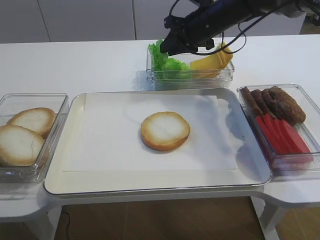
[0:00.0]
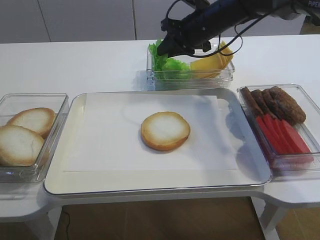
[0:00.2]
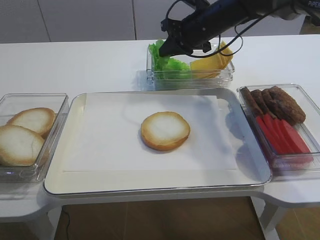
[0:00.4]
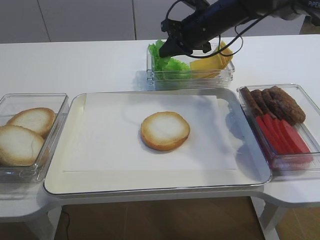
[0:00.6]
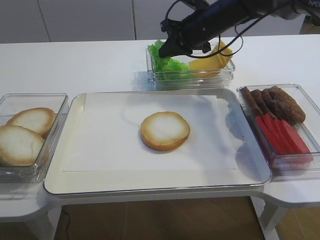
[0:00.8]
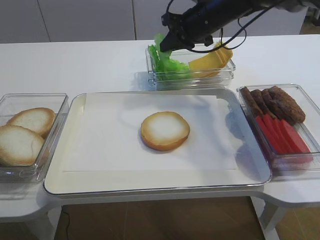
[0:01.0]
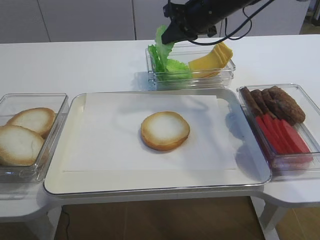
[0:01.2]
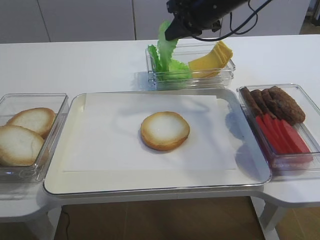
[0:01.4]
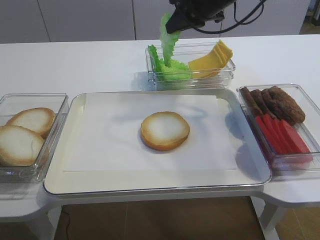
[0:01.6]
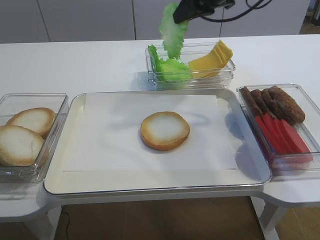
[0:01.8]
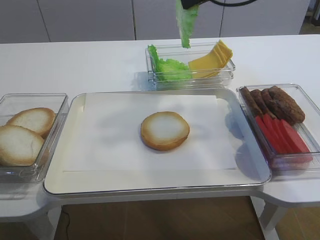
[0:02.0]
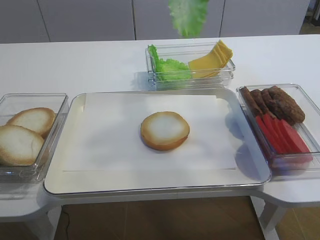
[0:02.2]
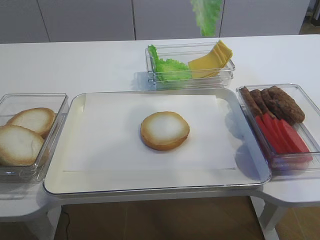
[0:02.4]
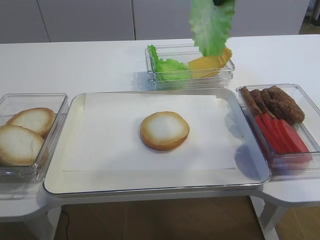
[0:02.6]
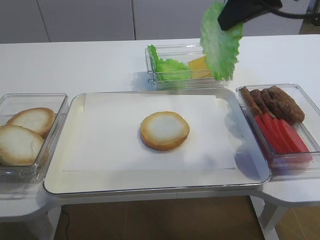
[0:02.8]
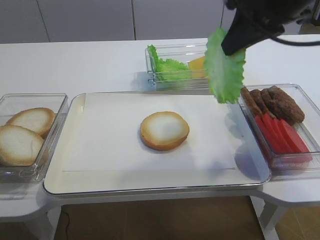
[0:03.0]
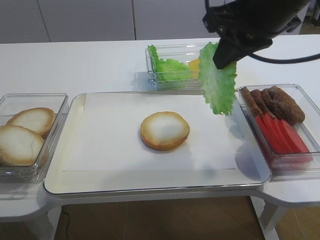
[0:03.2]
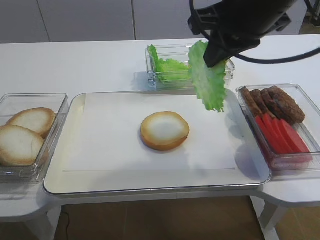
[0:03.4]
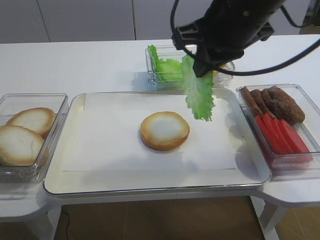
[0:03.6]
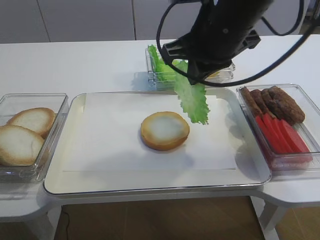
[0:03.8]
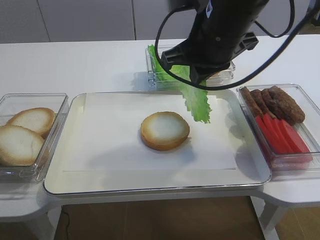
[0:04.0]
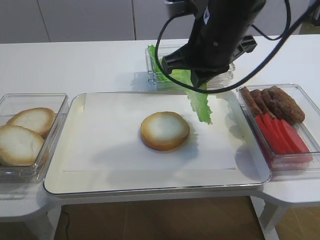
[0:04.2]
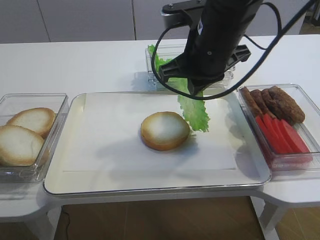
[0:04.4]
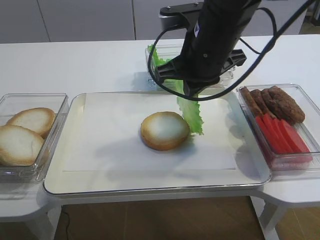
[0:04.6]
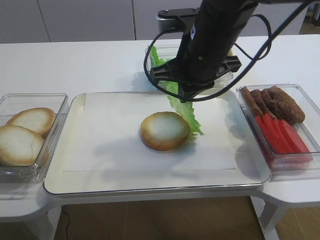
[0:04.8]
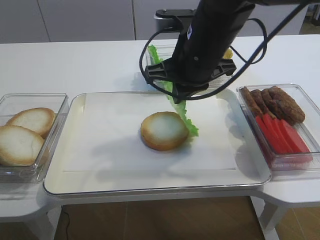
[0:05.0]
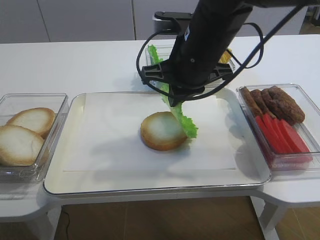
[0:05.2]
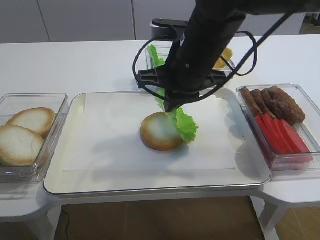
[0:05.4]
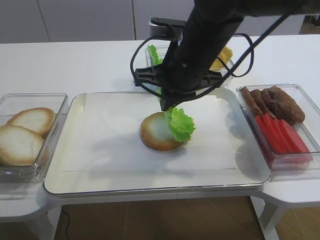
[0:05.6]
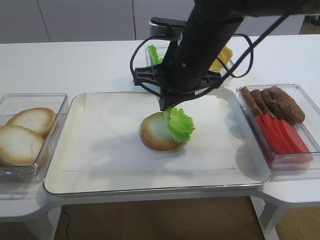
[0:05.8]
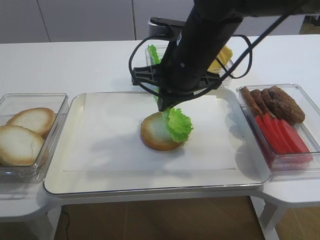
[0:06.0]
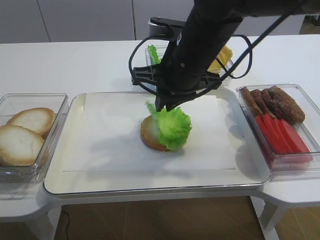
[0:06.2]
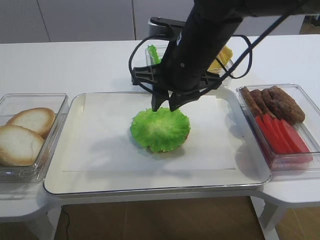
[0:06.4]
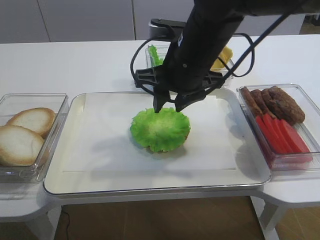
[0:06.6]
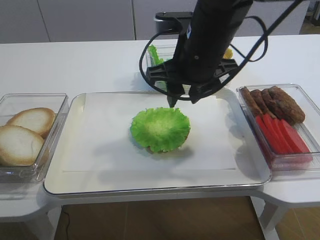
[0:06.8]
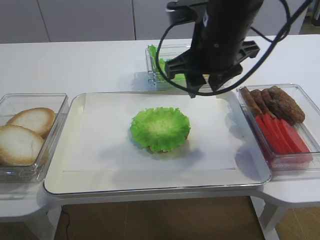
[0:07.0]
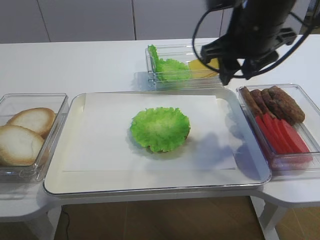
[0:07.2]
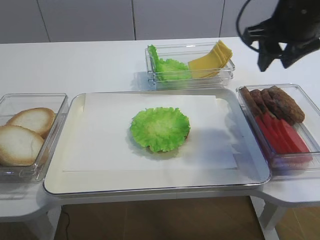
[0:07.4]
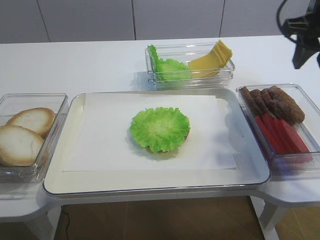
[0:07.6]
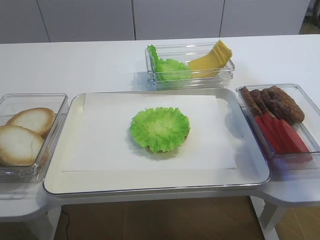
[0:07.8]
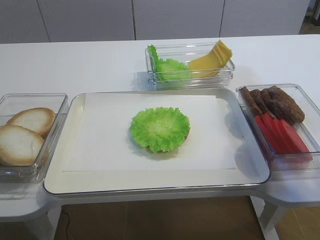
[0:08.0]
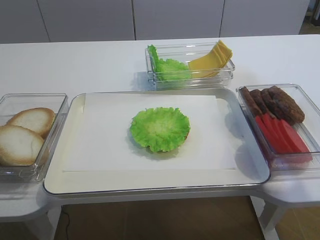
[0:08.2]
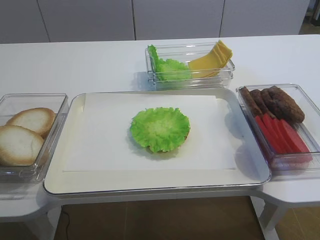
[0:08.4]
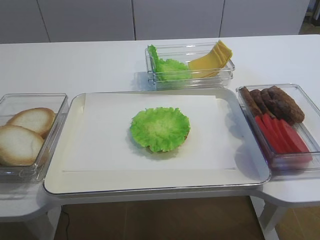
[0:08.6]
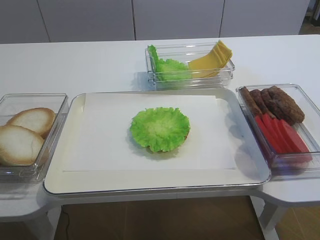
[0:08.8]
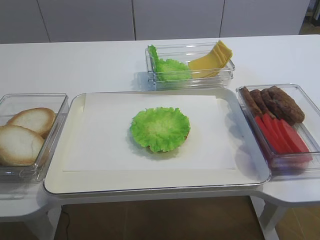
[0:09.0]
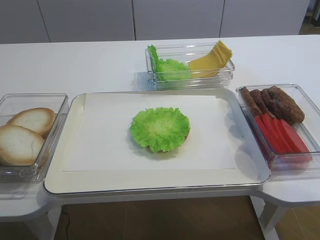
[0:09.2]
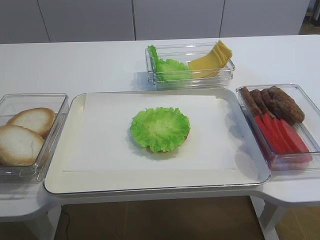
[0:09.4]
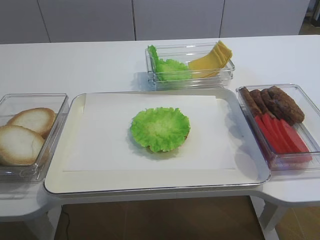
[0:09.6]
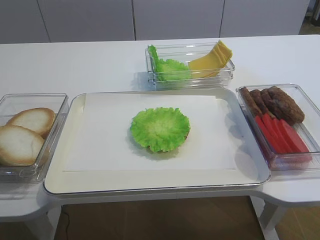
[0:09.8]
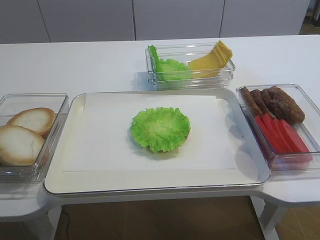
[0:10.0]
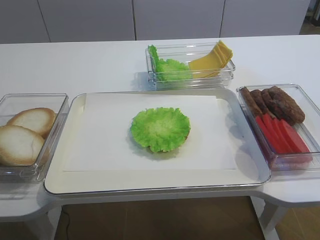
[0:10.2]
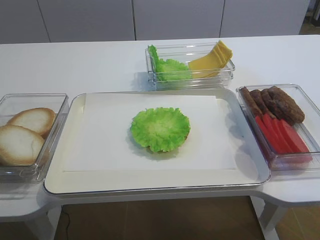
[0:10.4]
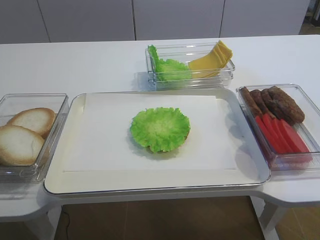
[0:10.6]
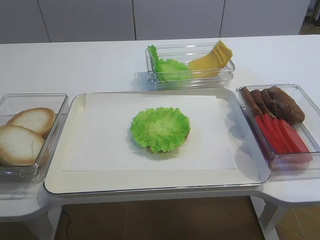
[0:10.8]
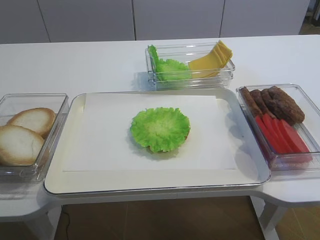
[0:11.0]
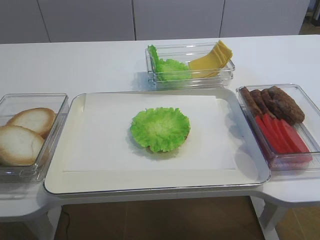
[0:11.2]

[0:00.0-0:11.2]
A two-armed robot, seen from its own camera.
Step, 0:01.4 to 0:06.6: Place the lettuce leaf on the bread slice with the right gripper.
0:00.0 to 0:01.6: The right gripper travels upward by roughly 5 cm, and closes its fingers.
0:01.6 to 0:03.2: The right gripper travels backward by about 15 cm.
0:03.2 to 0:04.8: The right gripper goes some 10 cm downward and to the left.
0:04.8 to 0:06.4: The right gripper opens its fingers.
0:06.4 to 0:08.0: The right gripper shifts some 25 cm to the right.
0:08.0 to 0:09.6: The right gripper moves backward, some 30 cm.

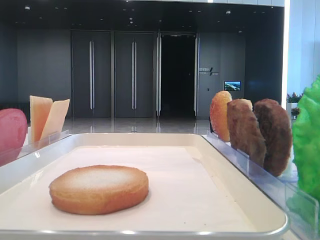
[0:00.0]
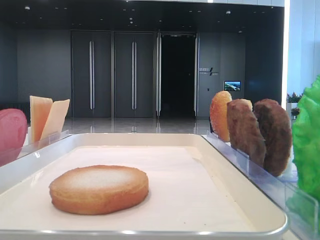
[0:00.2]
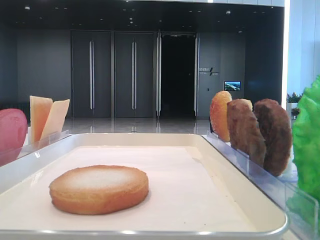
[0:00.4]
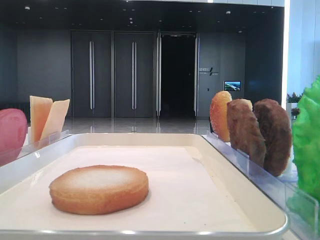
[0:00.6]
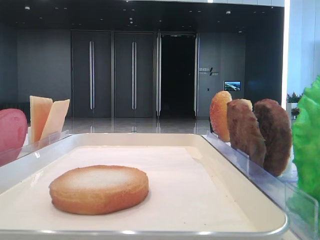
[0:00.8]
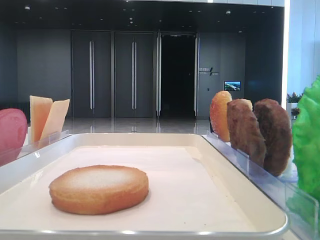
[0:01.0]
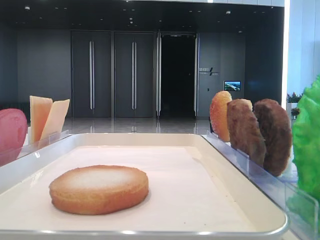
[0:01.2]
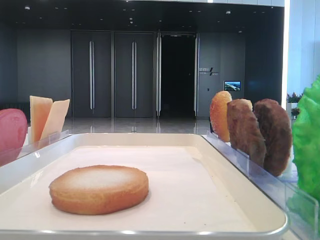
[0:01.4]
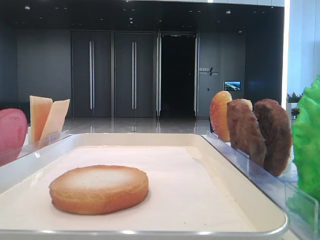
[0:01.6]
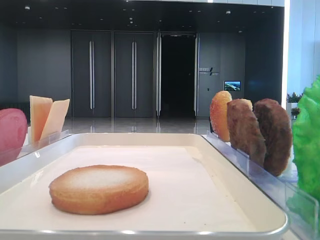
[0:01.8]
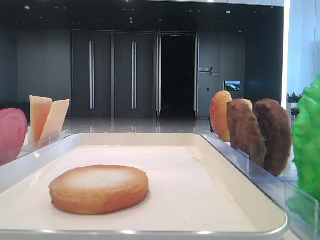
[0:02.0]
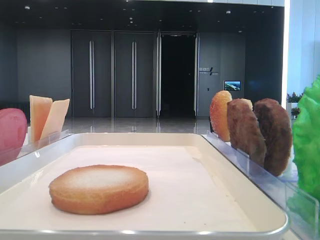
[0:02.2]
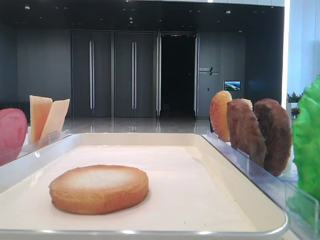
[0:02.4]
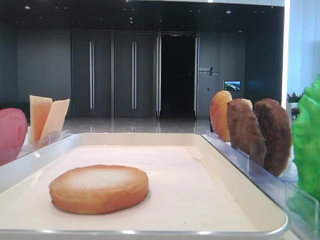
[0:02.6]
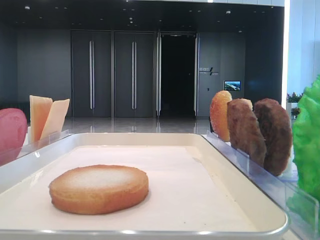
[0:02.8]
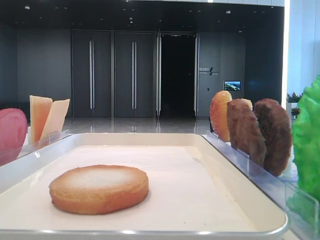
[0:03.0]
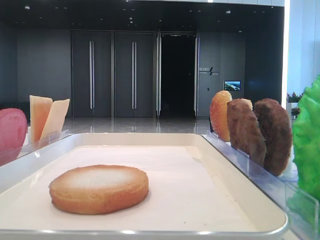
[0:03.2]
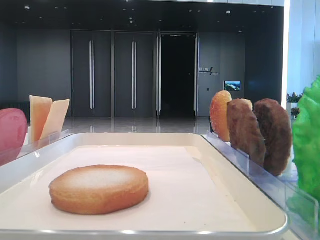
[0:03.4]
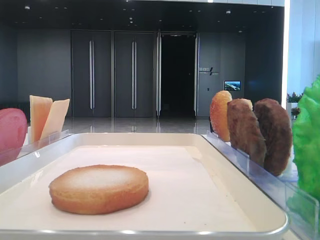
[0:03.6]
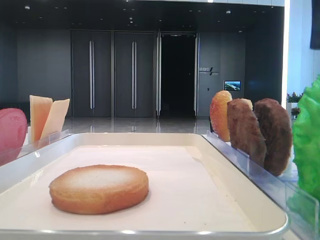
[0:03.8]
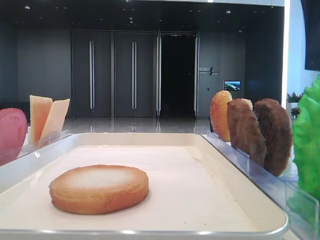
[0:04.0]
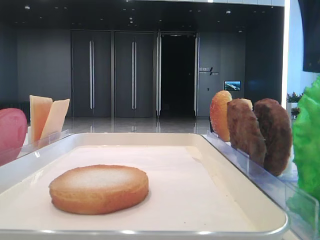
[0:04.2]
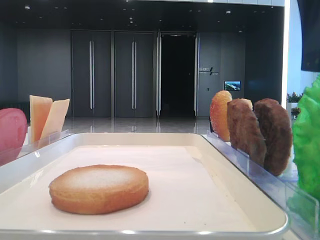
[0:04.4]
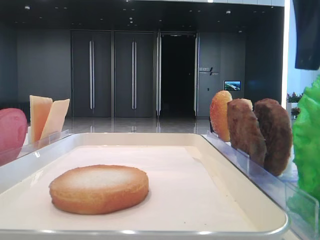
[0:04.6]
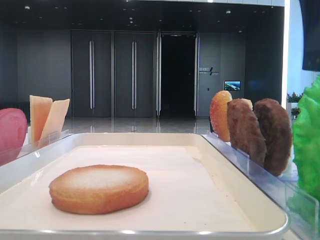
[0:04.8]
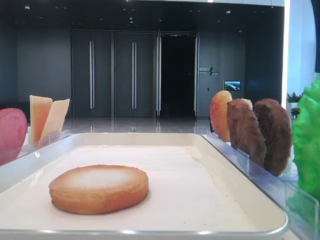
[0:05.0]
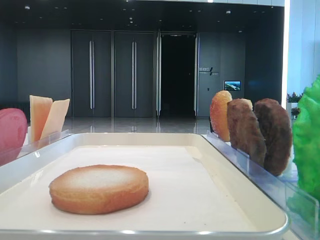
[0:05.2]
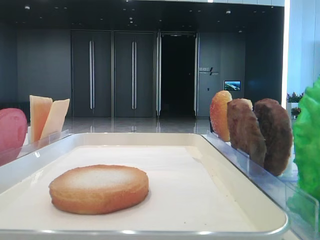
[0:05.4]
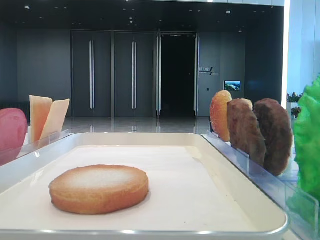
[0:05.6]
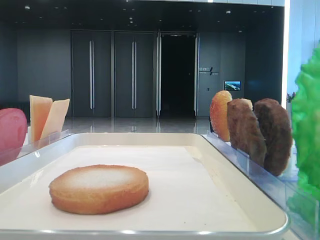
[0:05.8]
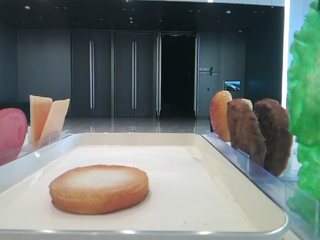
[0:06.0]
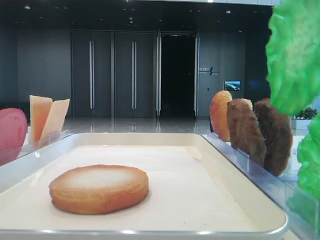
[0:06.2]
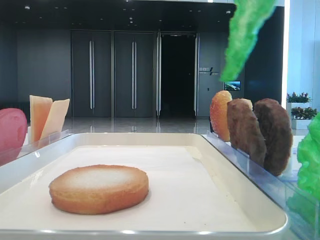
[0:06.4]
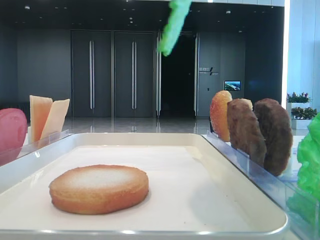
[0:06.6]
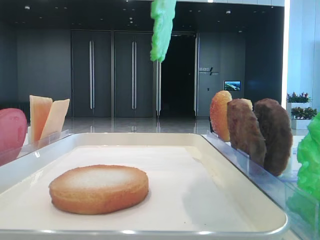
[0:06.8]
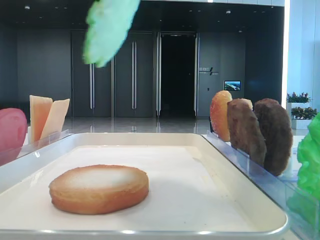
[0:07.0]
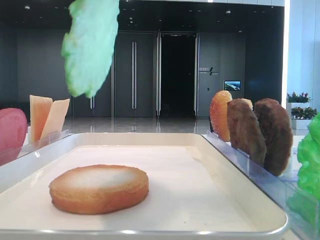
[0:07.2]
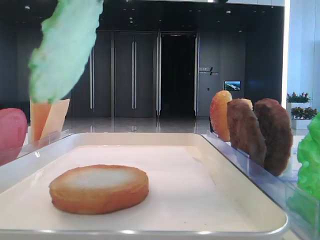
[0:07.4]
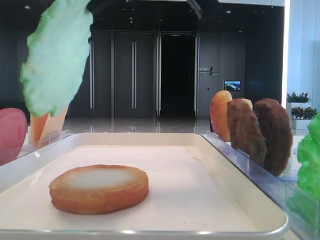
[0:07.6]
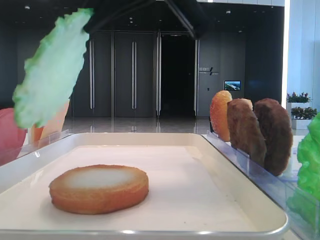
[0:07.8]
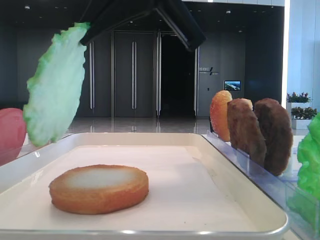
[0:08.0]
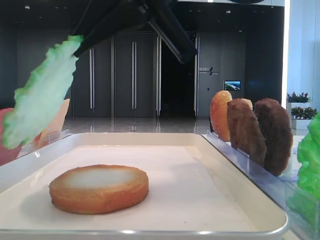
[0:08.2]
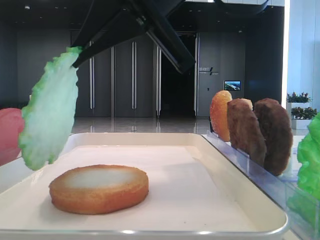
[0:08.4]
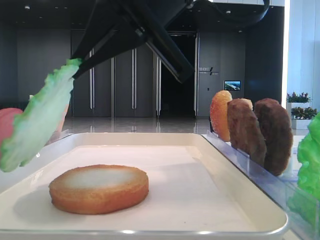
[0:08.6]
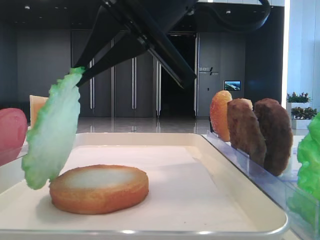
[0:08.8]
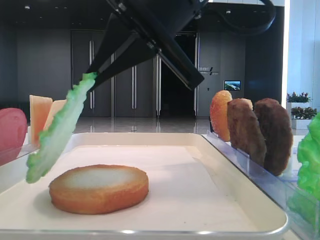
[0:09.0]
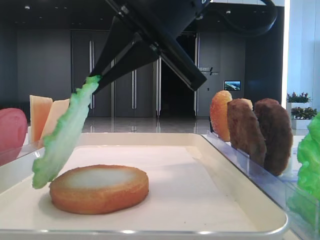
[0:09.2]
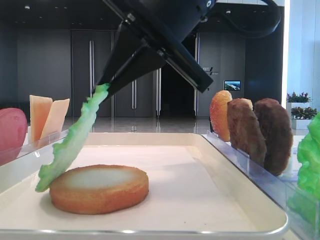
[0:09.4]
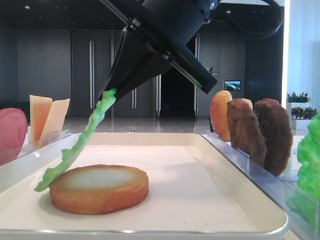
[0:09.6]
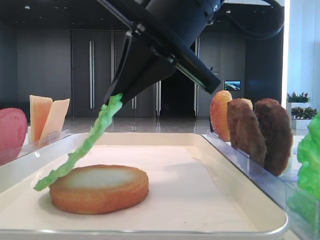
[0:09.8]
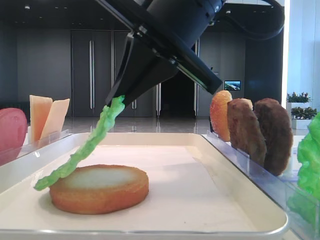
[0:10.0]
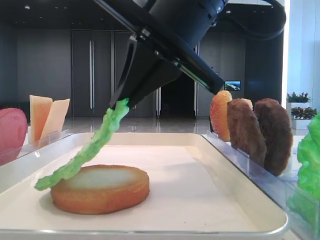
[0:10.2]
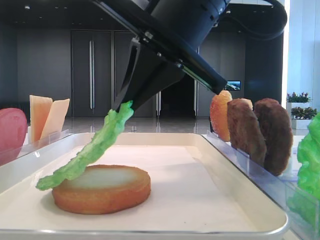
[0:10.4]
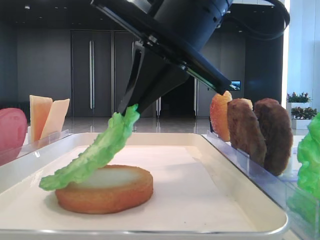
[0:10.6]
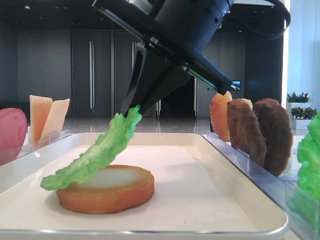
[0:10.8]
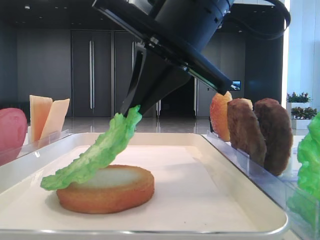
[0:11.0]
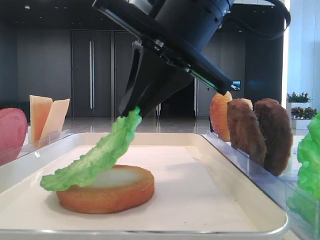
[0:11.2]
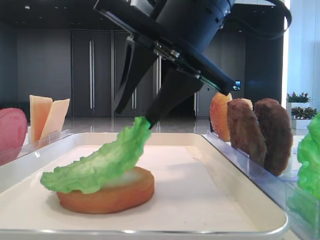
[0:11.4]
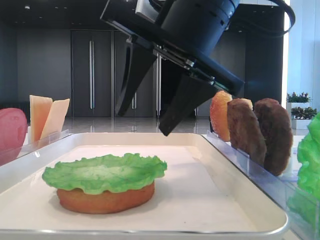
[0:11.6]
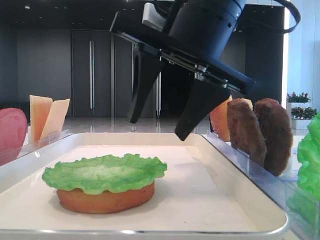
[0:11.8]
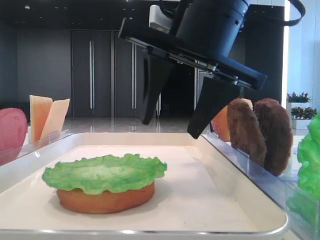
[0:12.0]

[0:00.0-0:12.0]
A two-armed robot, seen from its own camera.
Step, 0:00.0 to 0:05.4: Grab the lettuce leaf with the right hand.
Step, 0:05.6 to 0:11.6: Place the lettuce leaf on the bottom bread with the right hand.
0:03.0 to 0:04.4: The right gripper goes roughly 10 cm to the left and downward.
0:04.4 to 0:06.0: The right gripper shifts about 5 cm upward, and closes up.
0:06.0 to 0:07.6: The right gripper heads to the left and forward, covering some 15 cm.
0:07.6 to 0:09.0: The right gripper moves downward, approximately 5 cm.
0:09.0 to 0:10.4: The grippers move only a little.
0:10.4 to 0:12.0: The right gripper opens.
